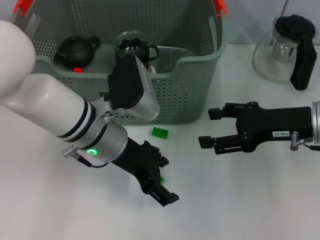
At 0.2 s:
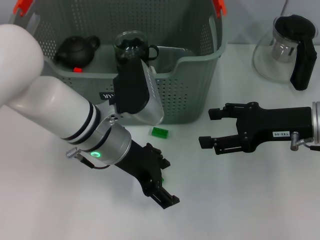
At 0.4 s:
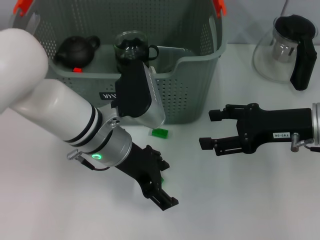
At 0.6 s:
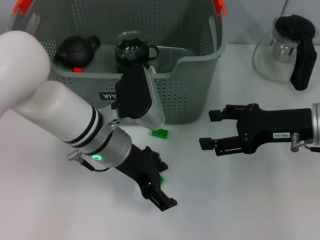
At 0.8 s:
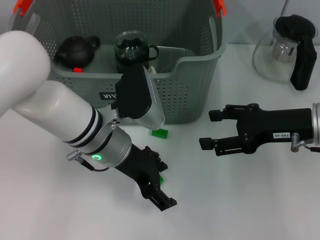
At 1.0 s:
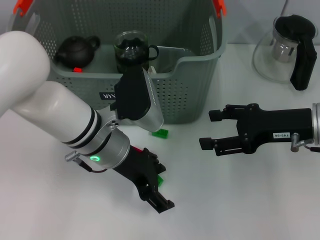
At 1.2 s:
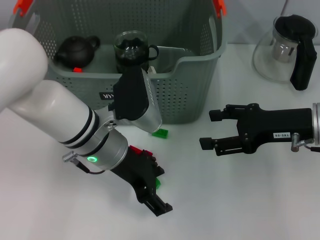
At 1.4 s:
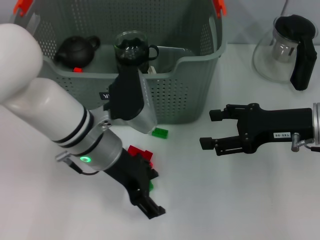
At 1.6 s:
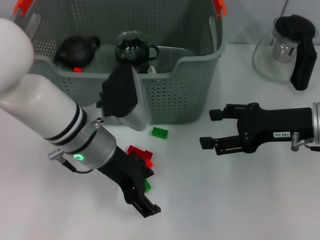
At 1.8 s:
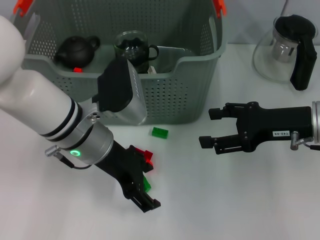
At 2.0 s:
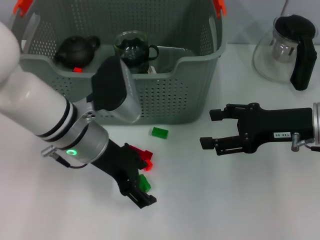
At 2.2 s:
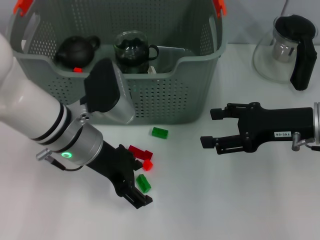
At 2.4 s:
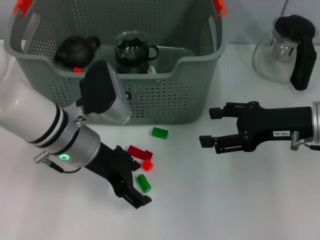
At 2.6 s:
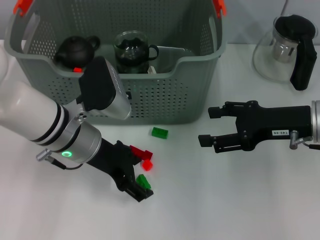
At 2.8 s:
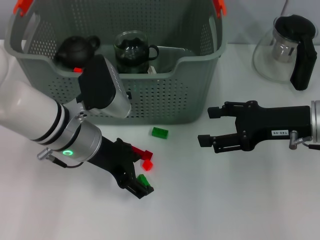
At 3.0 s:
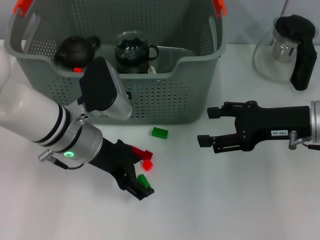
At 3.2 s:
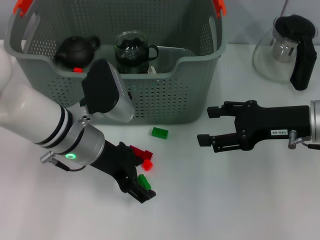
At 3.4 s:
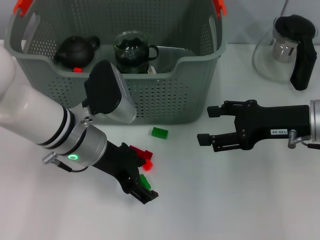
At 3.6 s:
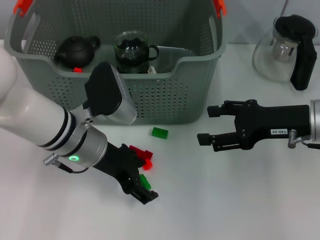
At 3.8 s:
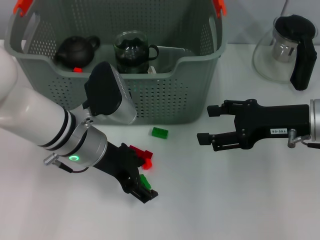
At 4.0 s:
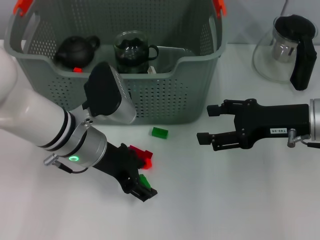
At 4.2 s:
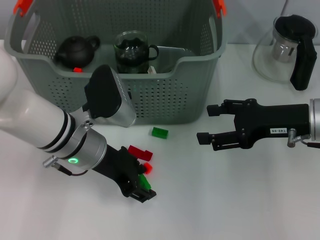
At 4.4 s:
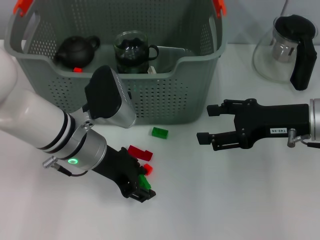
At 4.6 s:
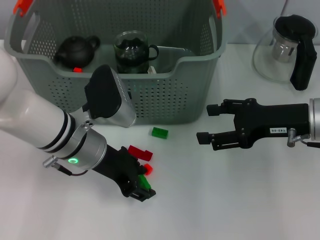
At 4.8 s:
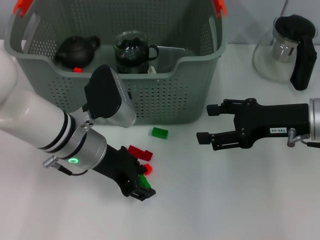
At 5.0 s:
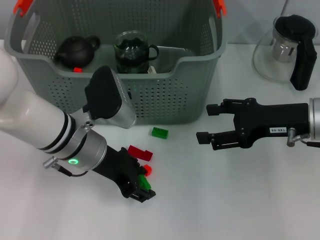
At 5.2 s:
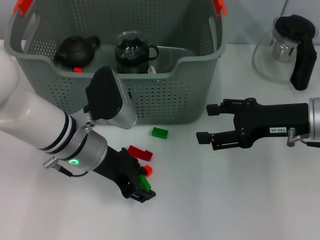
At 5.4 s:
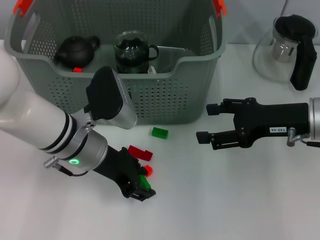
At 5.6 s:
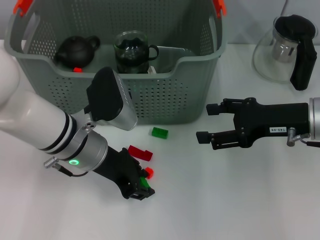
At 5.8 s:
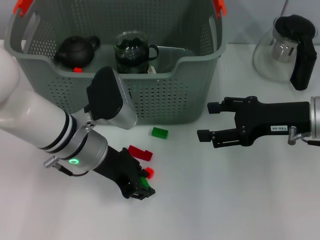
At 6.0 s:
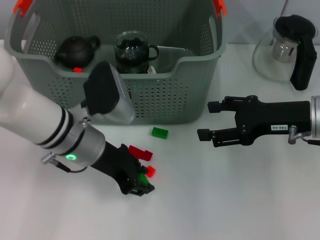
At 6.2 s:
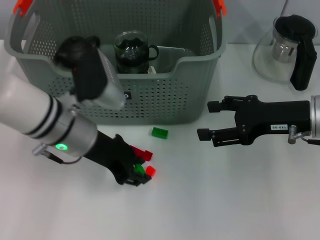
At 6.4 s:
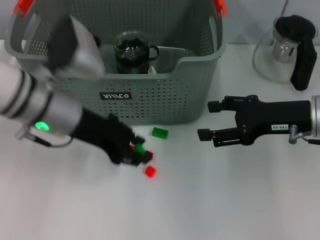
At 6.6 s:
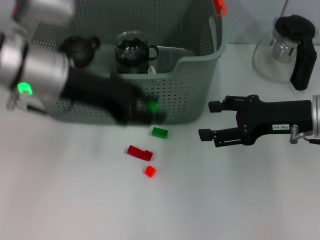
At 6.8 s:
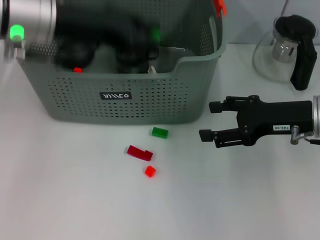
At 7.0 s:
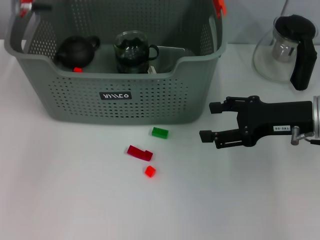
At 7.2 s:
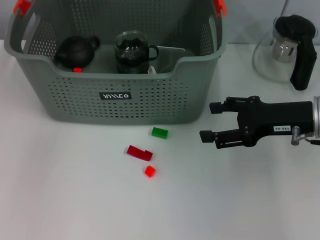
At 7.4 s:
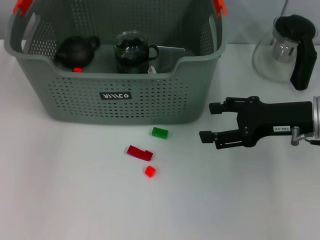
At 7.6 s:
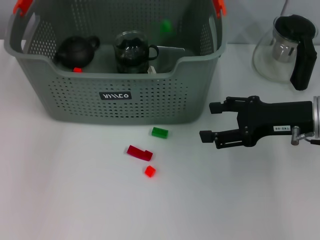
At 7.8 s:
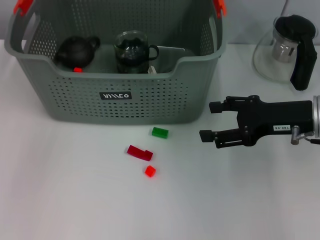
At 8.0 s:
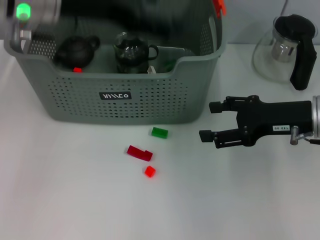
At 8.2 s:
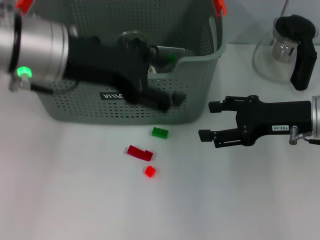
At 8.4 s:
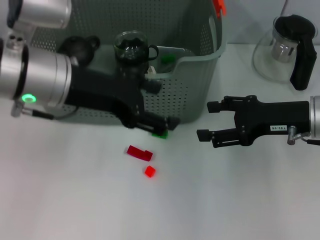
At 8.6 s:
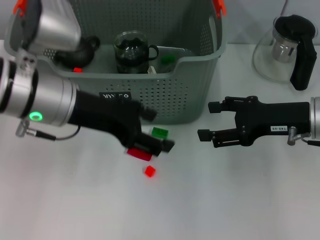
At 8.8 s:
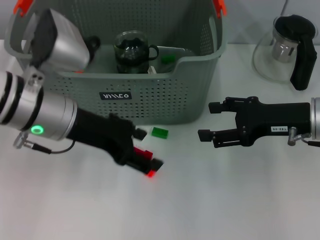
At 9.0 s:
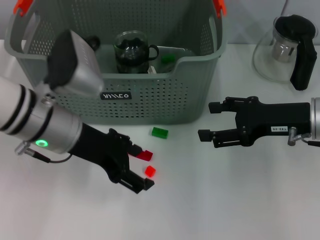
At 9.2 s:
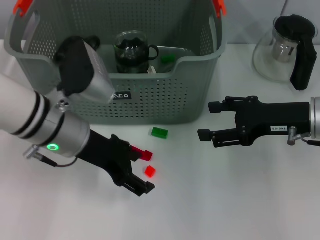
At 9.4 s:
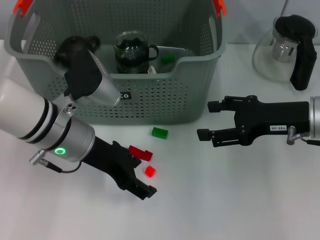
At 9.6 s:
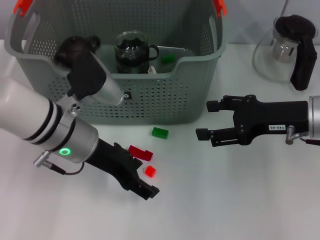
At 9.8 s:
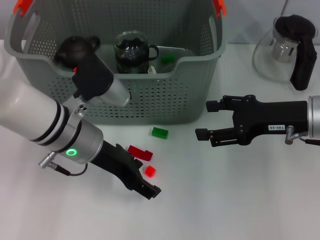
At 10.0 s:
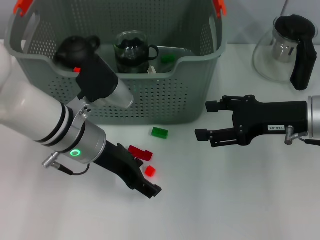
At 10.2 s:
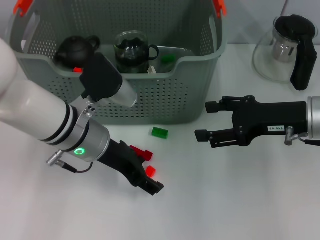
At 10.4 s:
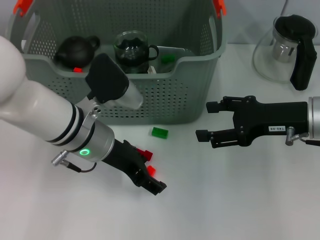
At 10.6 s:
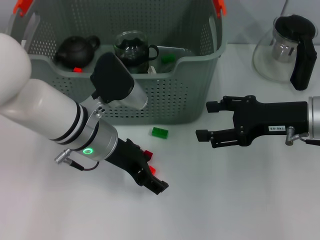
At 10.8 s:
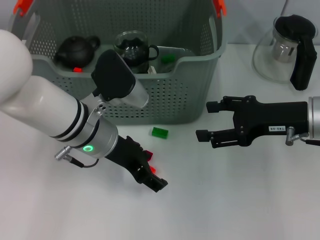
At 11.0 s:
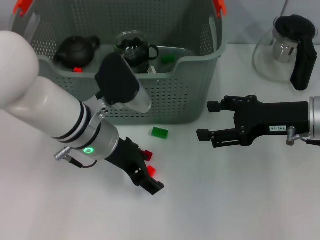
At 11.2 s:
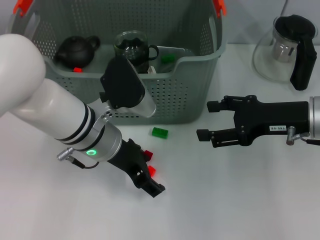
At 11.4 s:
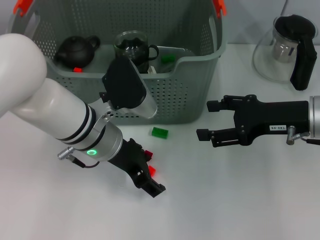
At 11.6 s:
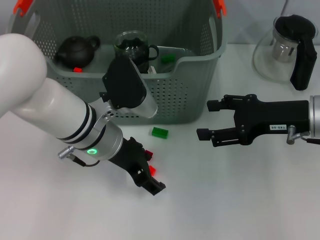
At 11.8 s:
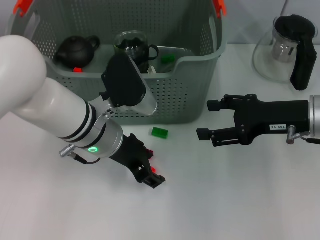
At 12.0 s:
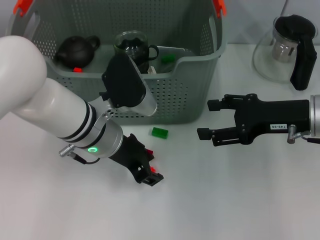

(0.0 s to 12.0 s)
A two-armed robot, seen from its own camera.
Task of the whole recording: pick up the teacup on the table and place it into the storage bin, pick up the block on the table and place it into the storage bin.
Step, 0.0 s - 5.6 s: Grasp the green block with left gripper.
Step, 6.0 s - 7.6 s: Place the green block in the storage box with left gripper.
0.0 s - 3.0 s: The grippers move only a little.
3.0 s - 6.0 s: The two grippers keep their place.
6.0 s - 7.6 s: The left gripper heads upward and forward, covering roughly 20 cm.
7.6 s - 9.0 s: The left gripper travels backward and downward by roughly 20 cm, and opens up.
9.0 s - 10.4 s: The left gripper shifts by some 5 cm.
10.4 s - 12.0 s: The grippers make only small movements.

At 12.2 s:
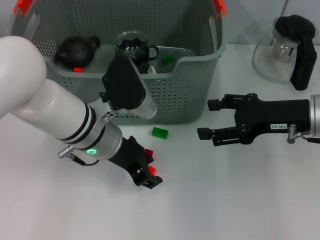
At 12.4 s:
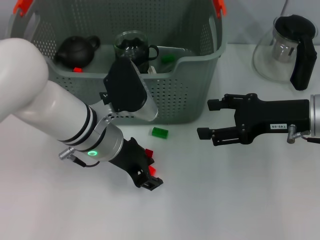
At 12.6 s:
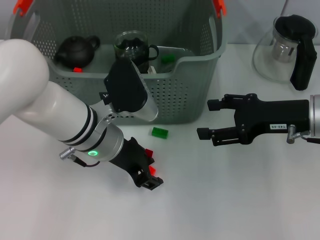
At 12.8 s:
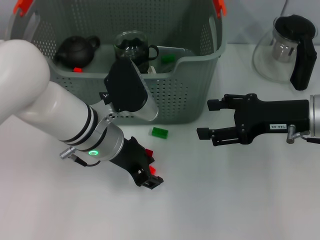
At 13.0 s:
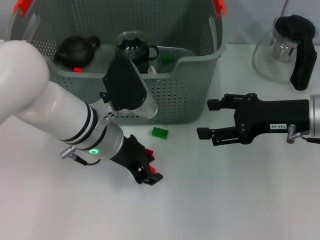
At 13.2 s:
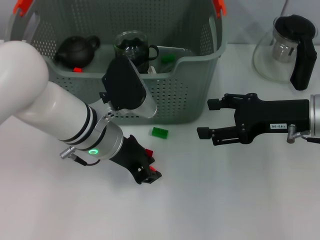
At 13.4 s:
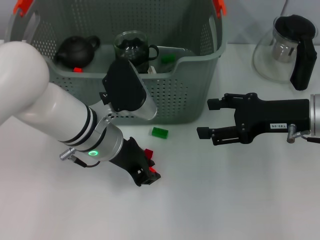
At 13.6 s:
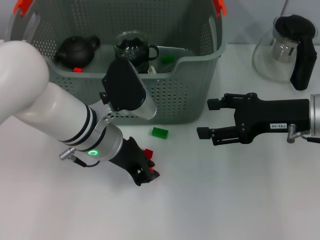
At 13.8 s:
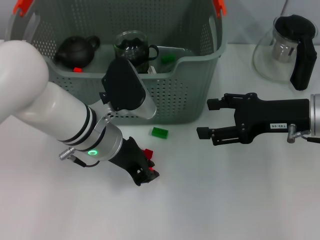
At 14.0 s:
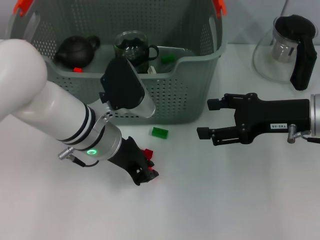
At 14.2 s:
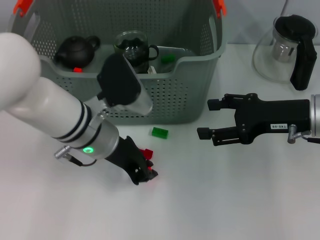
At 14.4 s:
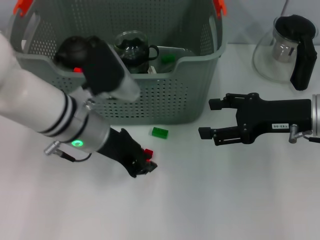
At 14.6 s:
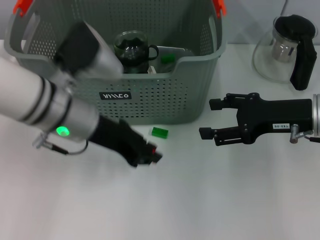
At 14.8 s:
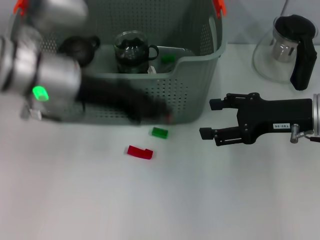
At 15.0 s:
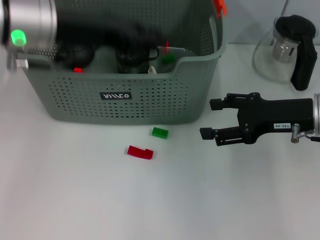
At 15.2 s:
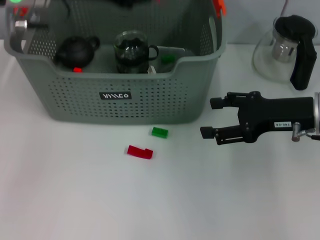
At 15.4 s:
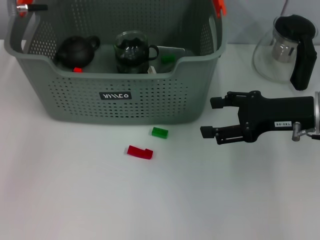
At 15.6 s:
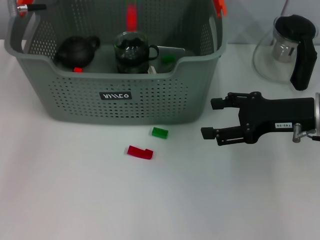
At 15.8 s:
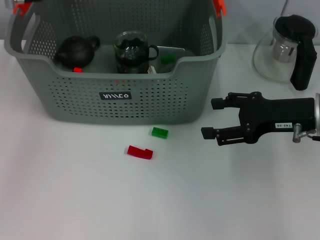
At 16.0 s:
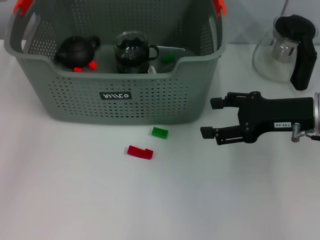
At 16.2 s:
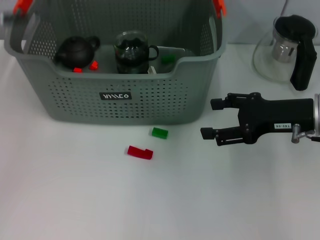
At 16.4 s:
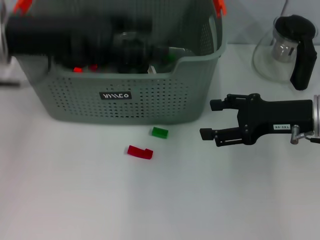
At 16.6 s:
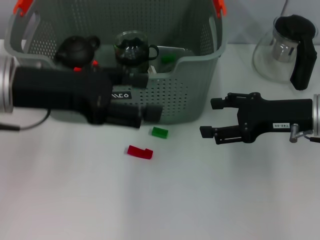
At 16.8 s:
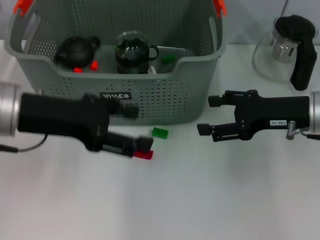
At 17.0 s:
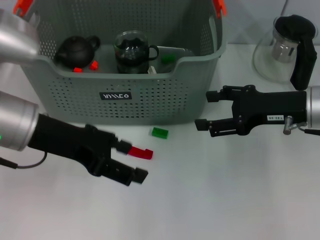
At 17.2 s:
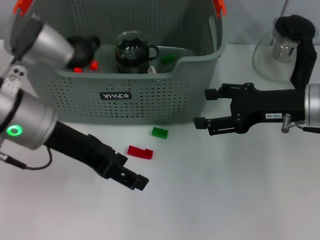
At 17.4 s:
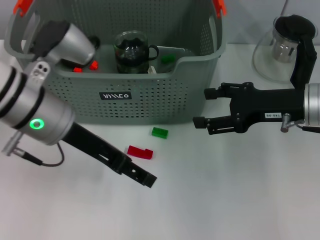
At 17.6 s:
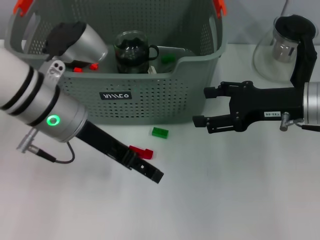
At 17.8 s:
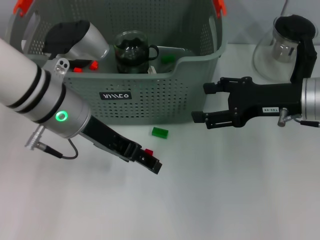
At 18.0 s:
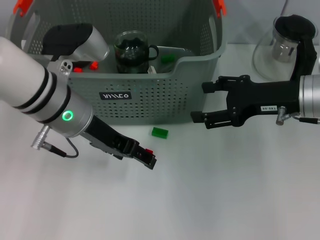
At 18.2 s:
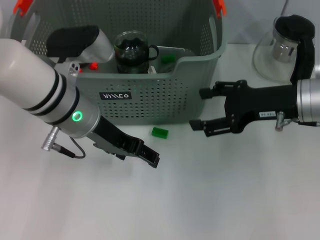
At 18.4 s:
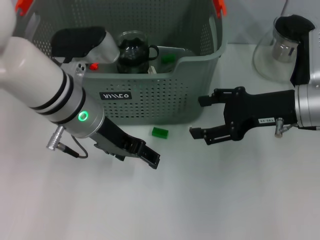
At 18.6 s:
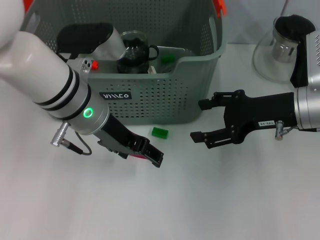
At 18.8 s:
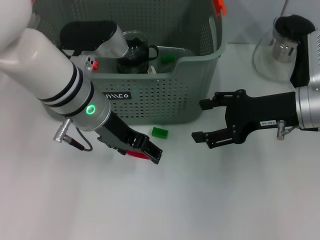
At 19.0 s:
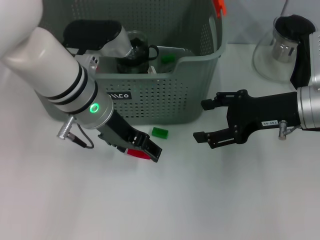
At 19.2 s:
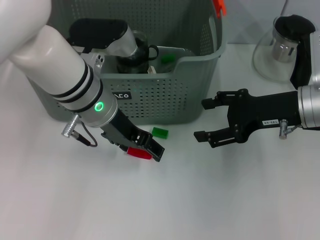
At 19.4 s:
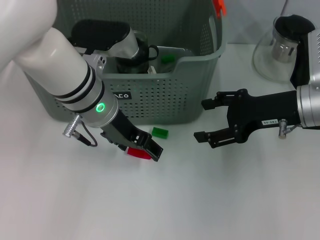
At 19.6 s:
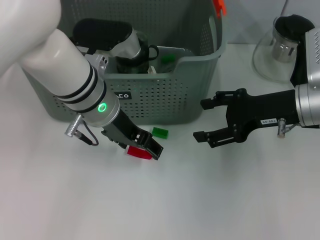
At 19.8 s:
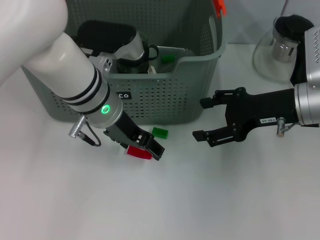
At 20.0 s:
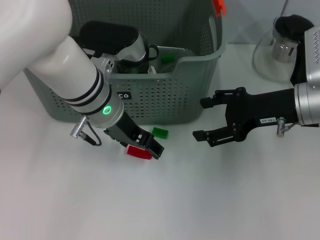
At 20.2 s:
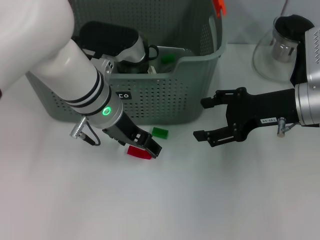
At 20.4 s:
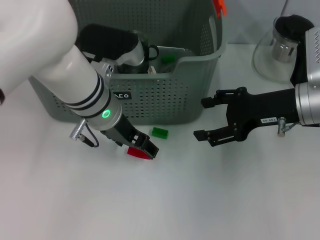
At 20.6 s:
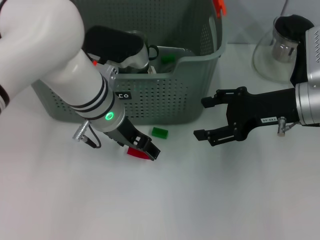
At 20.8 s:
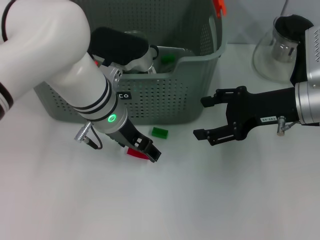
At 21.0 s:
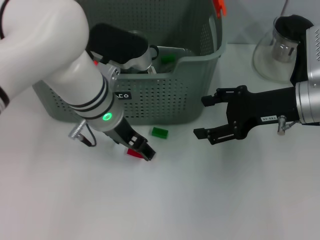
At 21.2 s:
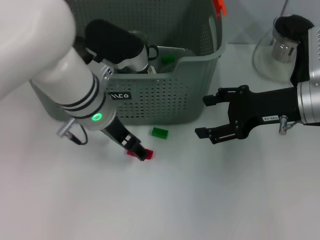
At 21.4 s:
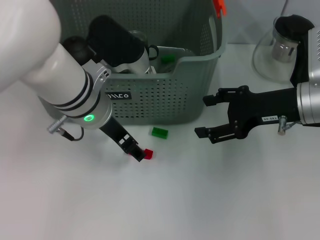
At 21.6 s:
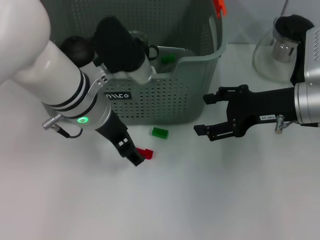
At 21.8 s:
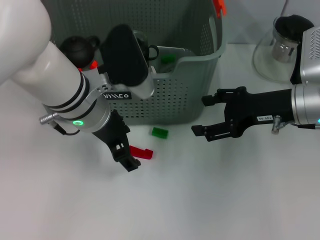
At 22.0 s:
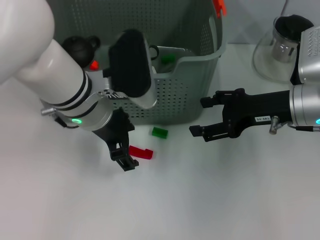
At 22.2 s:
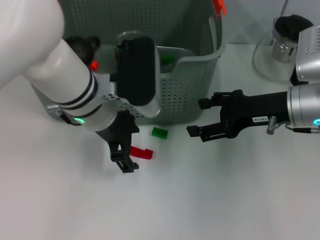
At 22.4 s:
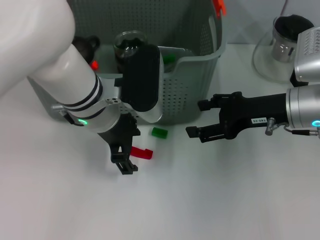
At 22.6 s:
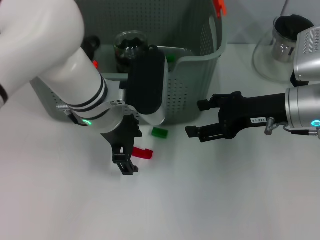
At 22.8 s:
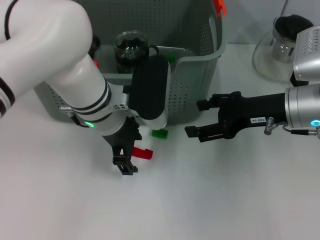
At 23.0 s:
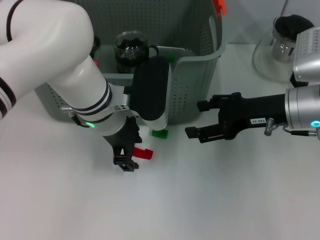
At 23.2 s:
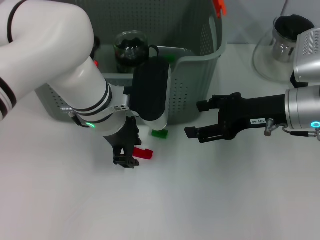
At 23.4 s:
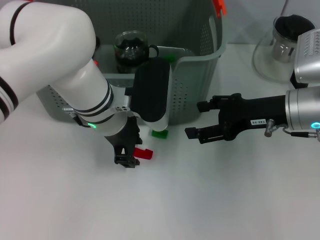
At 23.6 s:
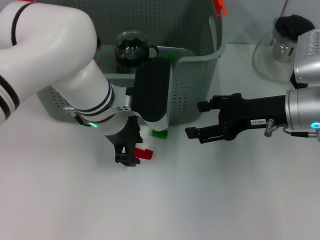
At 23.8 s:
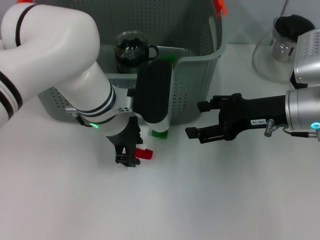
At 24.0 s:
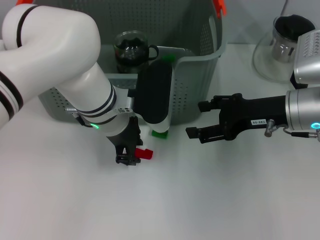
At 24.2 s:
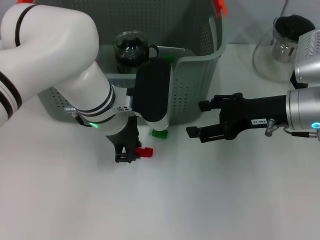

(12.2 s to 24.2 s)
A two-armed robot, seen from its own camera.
Task of the whole recording: pick up the teacup on the table and place it into the storage bin, pick up the block on the table and place it into the storage bin.
Step, 14.2 s - 15.6 s: Place the orange block in the storage box with left gripper.
12.2 s - 13.8 s: The left gripper closes.
13.8 s - 15.2 s: The left gripper shifts roughly 20 cm upward and to the left.
15.2 s - 16.6 s: The left gripper shifts about 10 cm backward and downward, and opens its fingers.
16.6 s - 18.2 s: The left gripper goes some 10 cm to the right and downward.
19.8 s - 21.2 s: The grippers move only a little.
22.6 s - 24.2 s: The left gripper closes its fingers.
